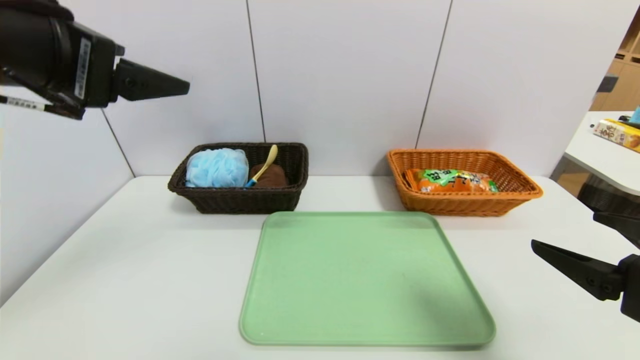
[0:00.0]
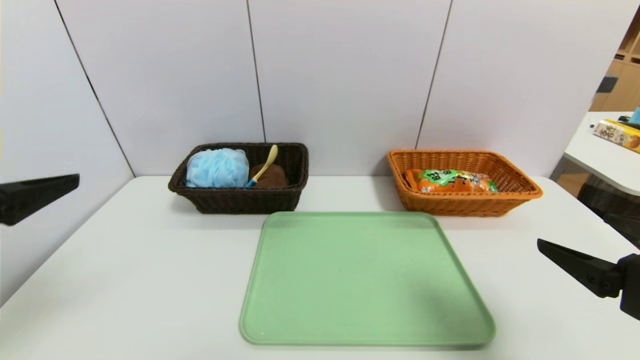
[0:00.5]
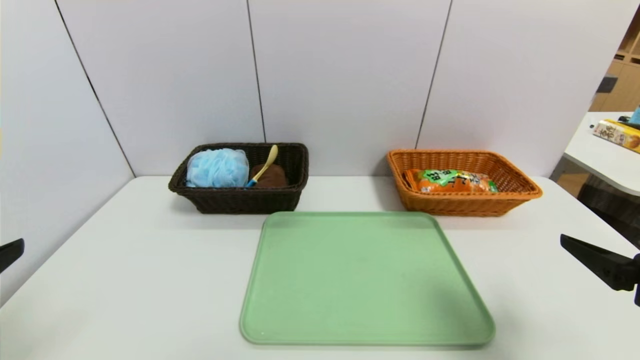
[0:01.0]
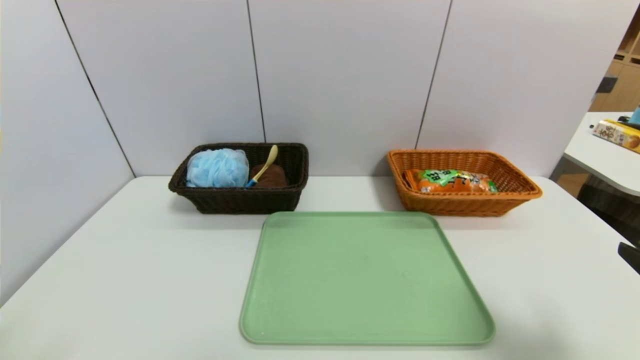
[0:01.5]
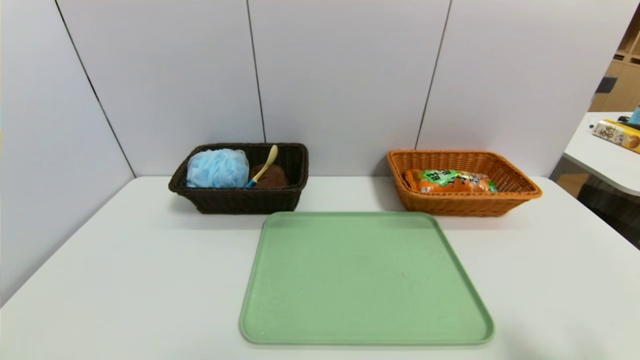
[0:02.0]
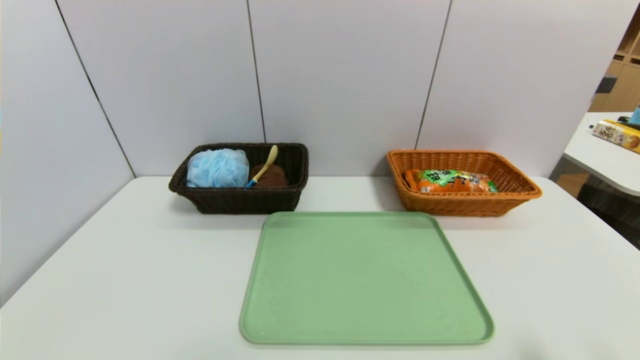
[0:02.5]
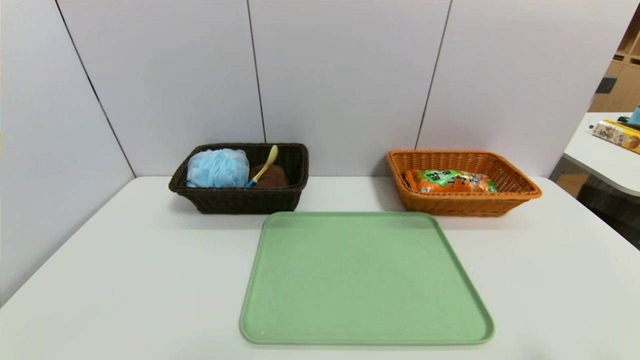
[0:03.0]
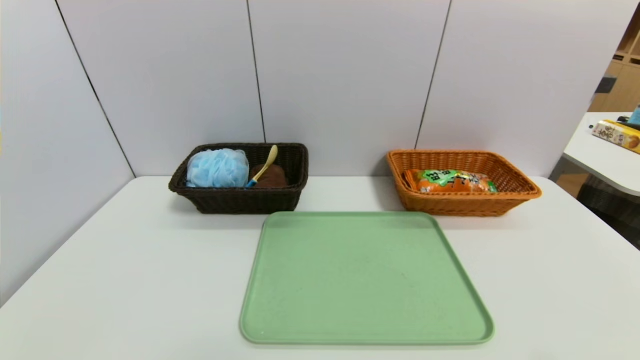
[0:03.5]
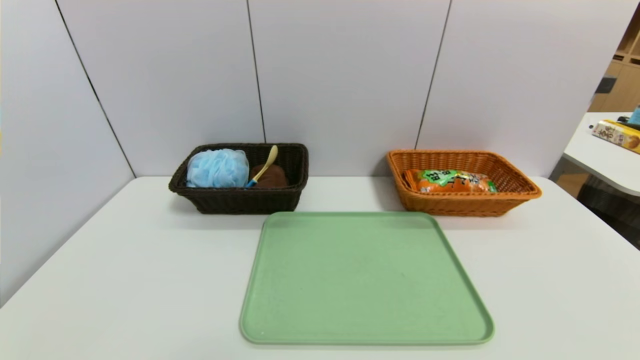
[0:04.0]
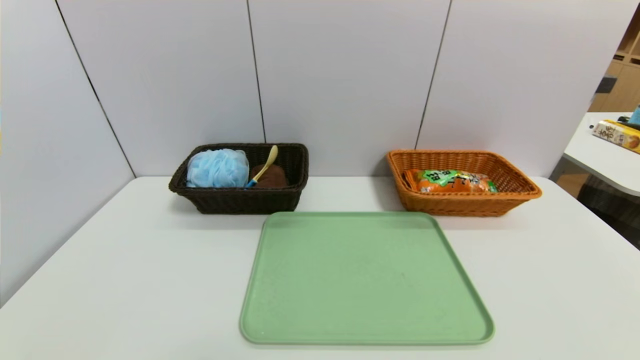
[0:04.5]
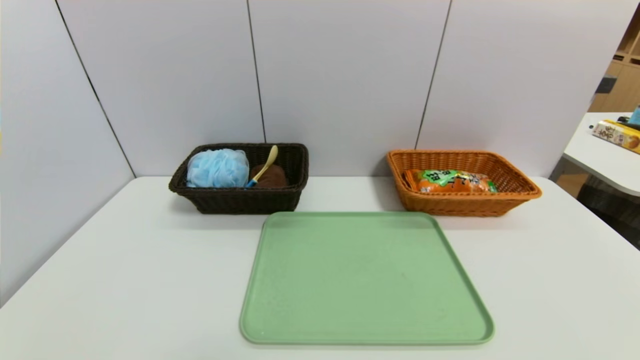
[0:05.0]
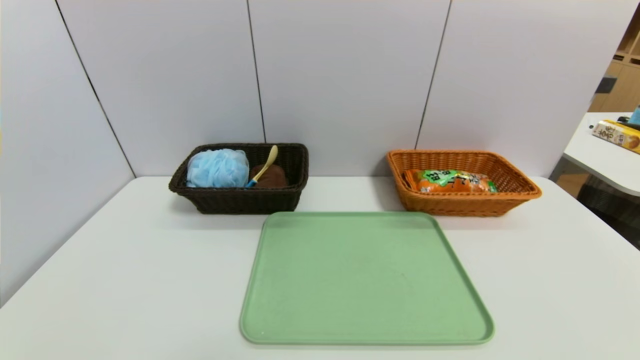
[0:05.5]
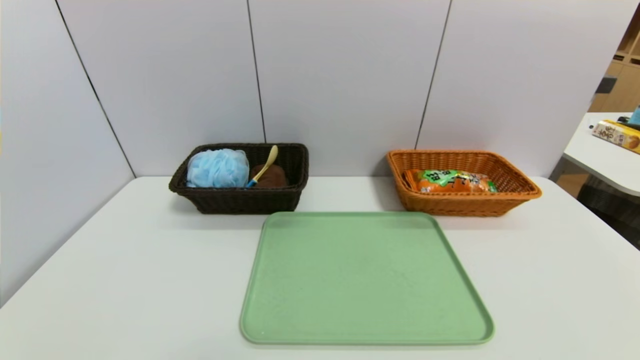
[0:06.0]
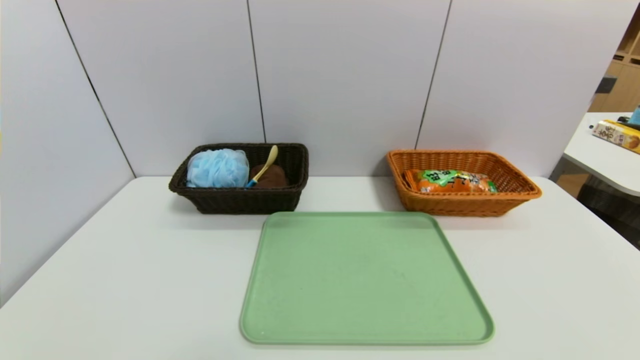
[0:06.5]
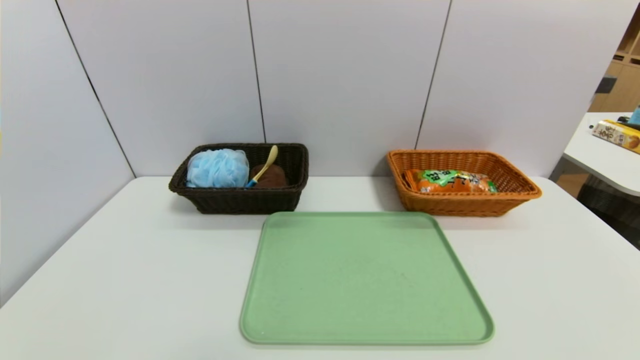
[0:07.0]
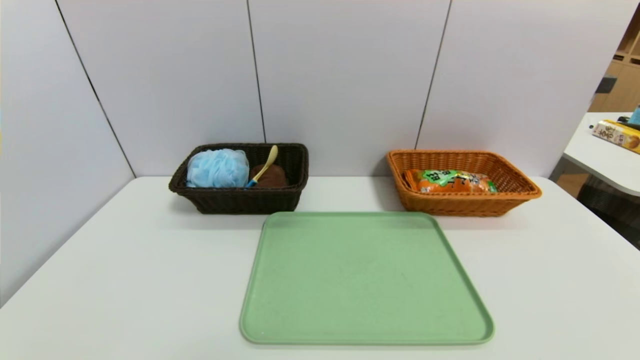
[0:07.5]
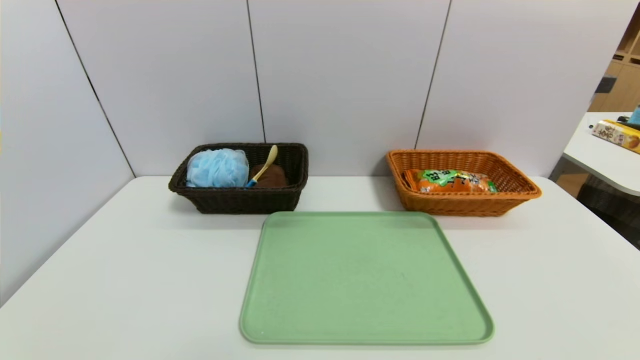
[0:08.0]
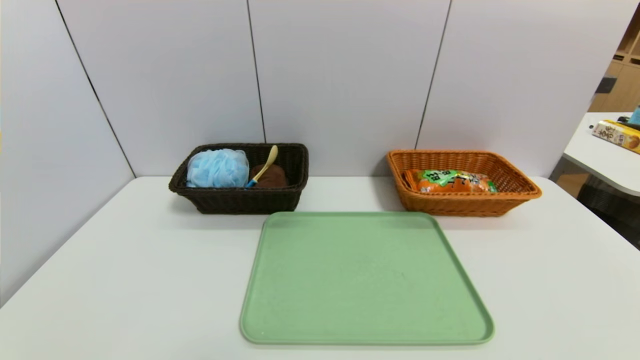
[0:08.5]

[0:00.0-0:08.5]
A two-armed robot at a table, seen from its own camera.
Task of the whole recording: place the food in the right basket with the right gripper, and place the non food items in the left basket with the left gripper.
0:00.0 to 0:02.0: The left gripper is displaced backward and downward by approximately 30 cm, while the right gripper is displaced backward by some 5 cm.
0:06.5 to 0:08.5: Both grippers stay about where they are.

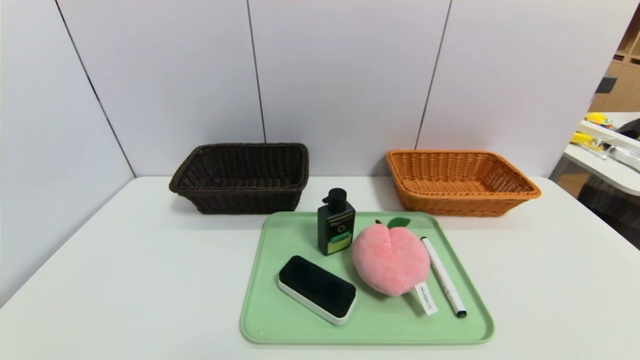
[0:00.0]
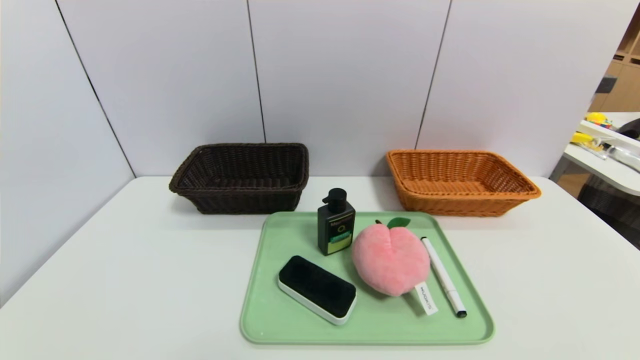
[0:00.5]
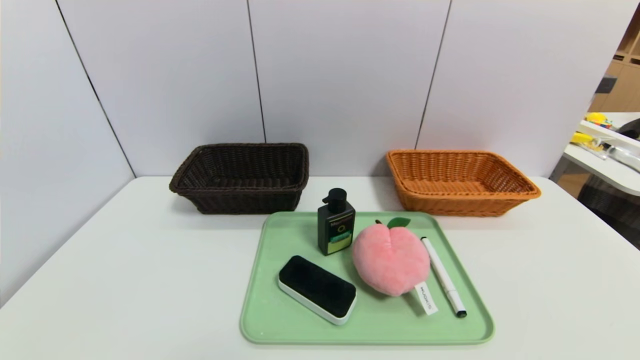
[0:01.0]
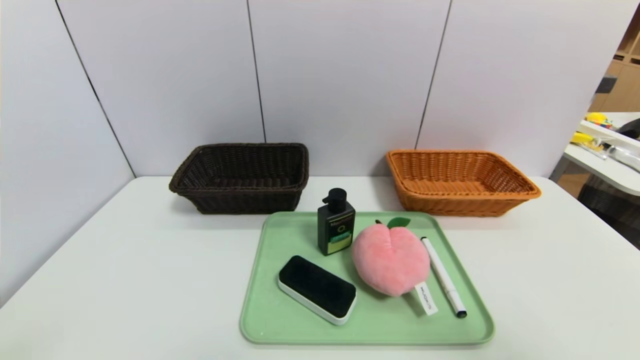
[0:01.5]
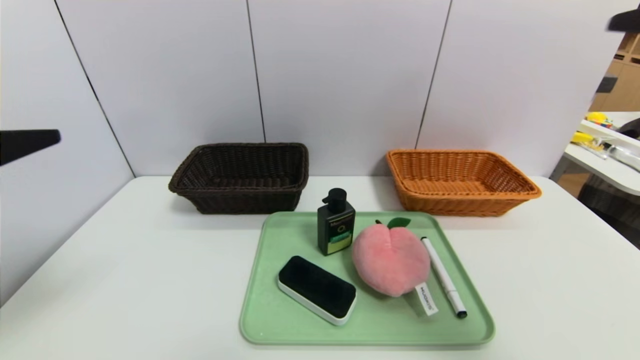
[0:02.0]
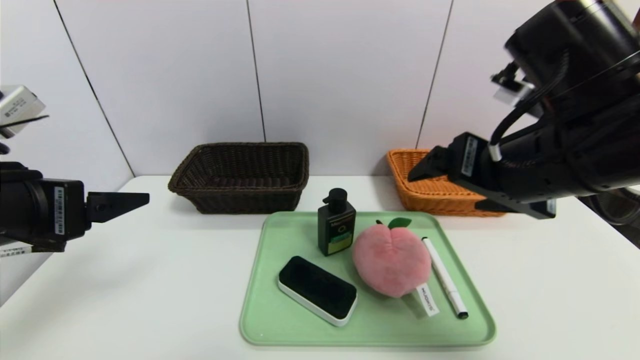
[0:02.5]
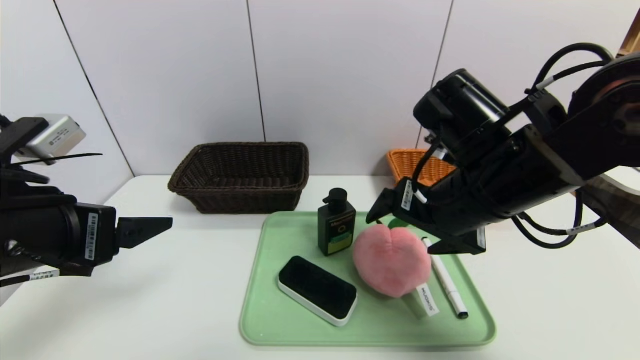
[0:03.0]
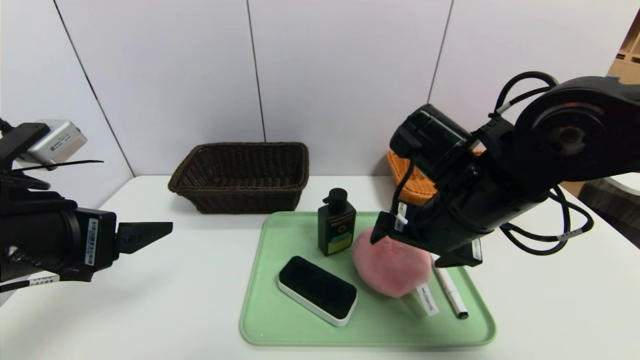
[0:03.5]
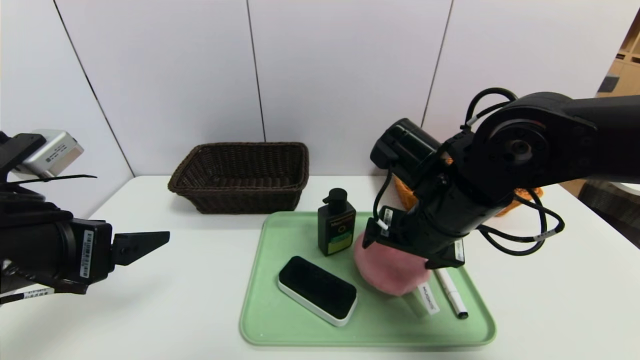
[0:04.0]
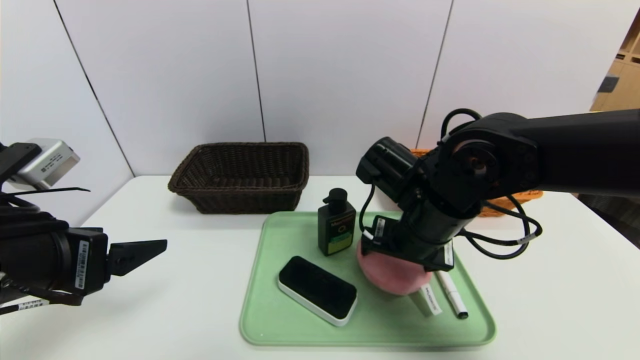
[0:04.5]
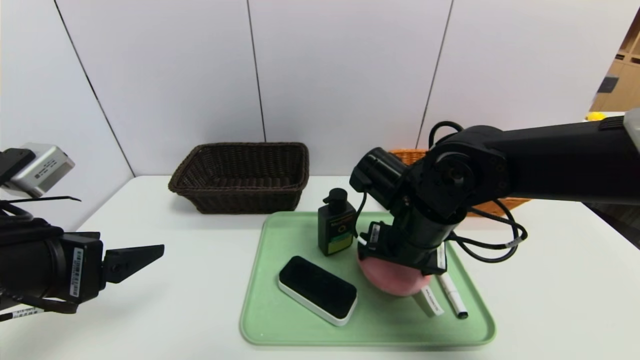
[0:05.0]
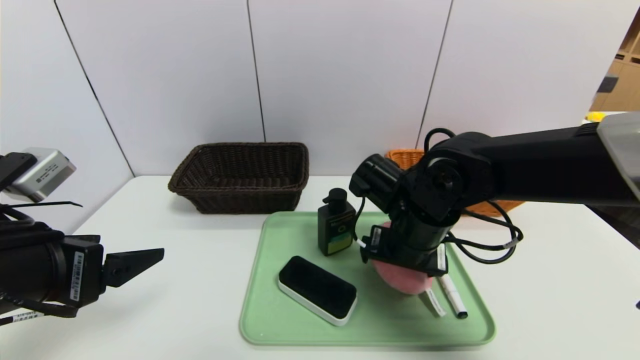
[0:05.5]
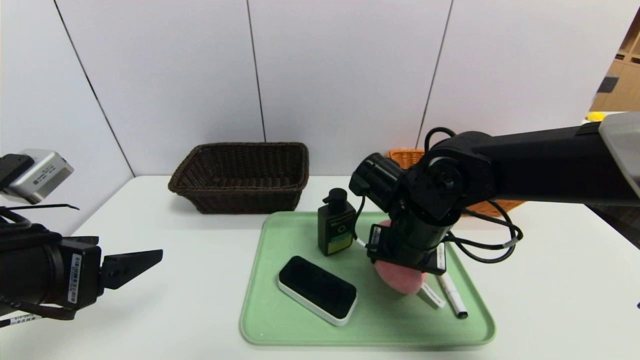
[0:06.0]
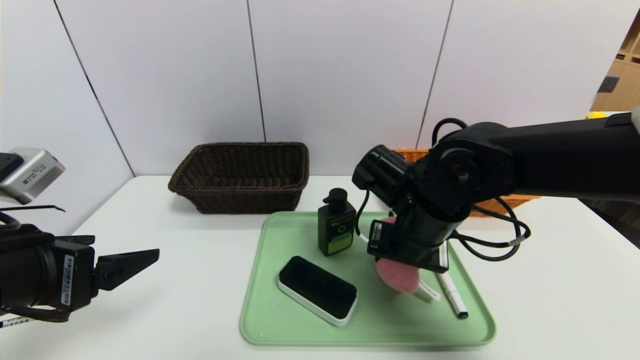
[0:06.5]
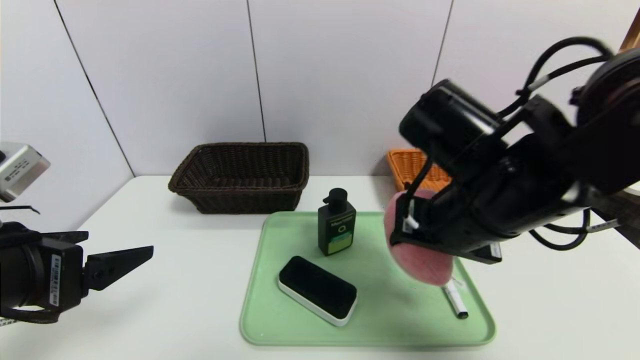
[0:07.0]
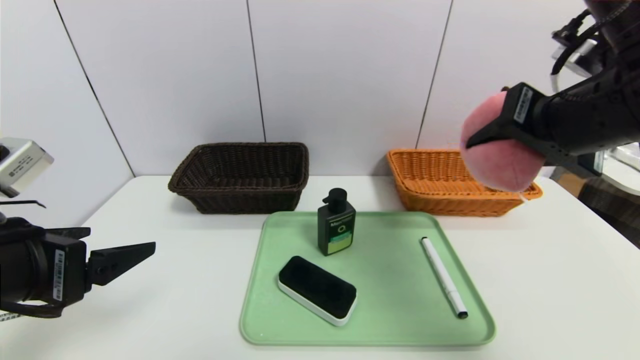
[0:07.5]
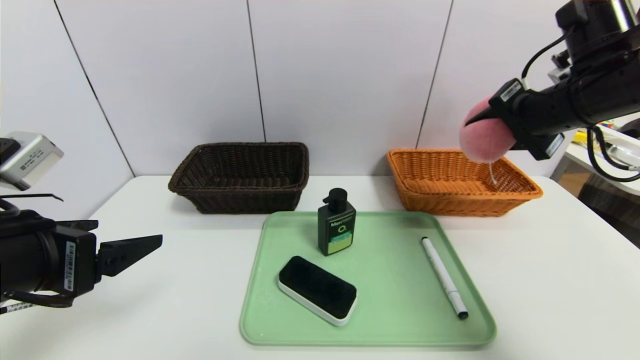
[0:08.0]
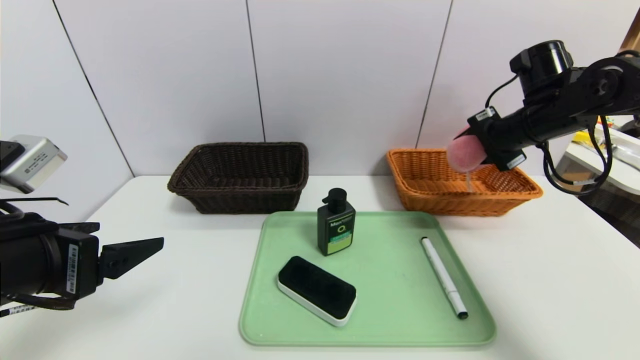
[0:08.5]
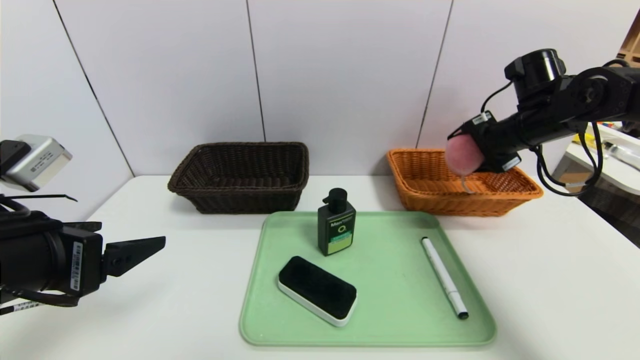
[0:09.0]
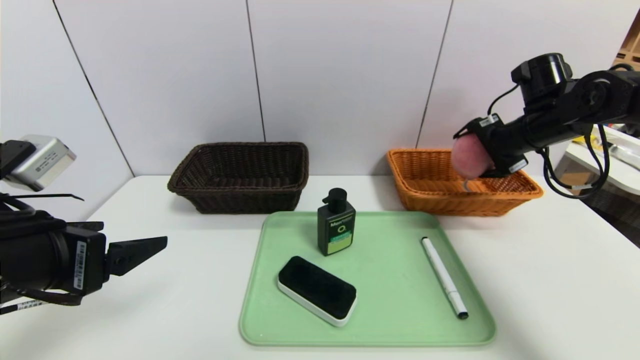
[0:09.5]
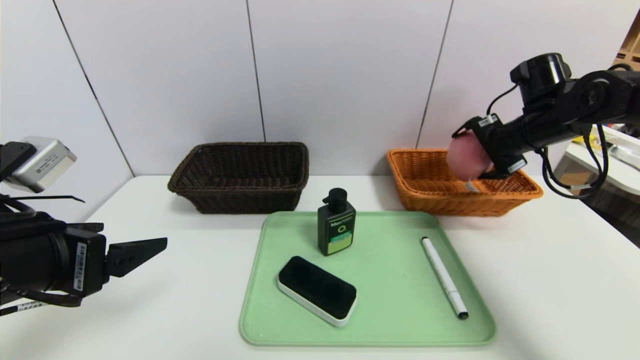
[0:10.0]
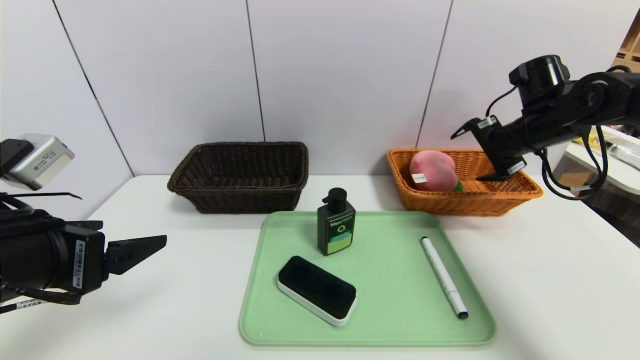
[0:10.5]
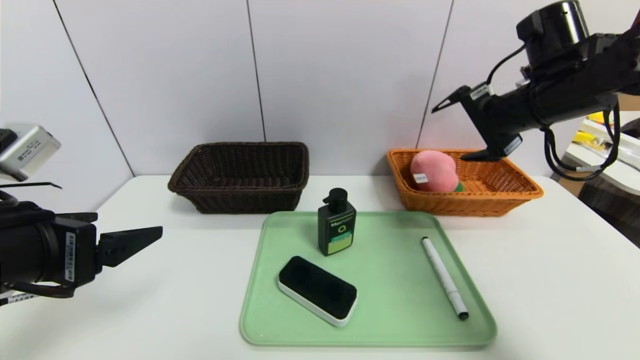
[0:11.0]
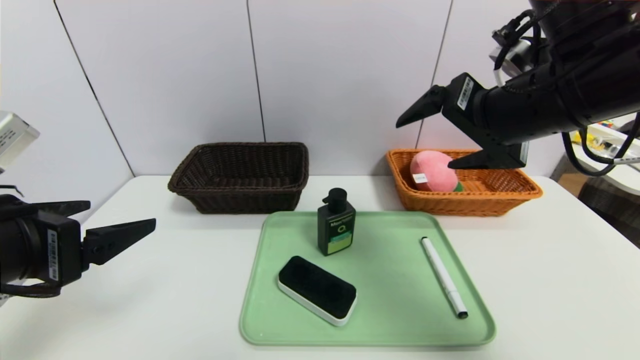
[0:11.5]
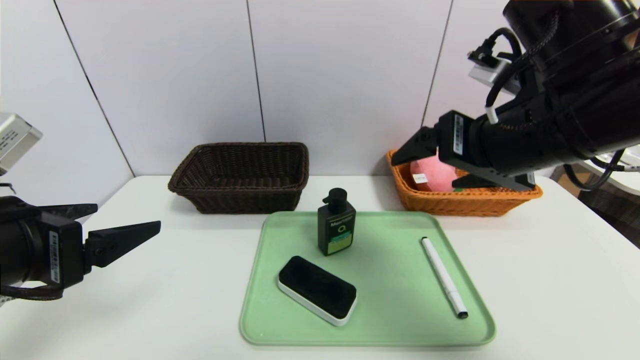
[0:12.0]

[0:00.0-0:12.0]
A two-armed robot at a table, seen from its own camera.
Task of the whole recording: place the food in the right basket with the right gripper, and place the non food items in the left basket with the left gripper.
Step, 0:00.0 to 0:11.5: Grasp the peach doll and put it in the right basket.
0:00.0 to 0:02.0: The two grippers go roughly 30 cm upward and forward.
0:02.0 to 0:04.0: The left gripper travels downward by approximately 10 cm, while the right gripper goes approximately 30 cm downward, to the left and forward.
0:04.0 to 0:06.0: The right gripper ends up some 5 cm from where it was, and closes its fingers.
0:06.0 to 0:08.0: The right gripper goes approximately 25 cm to the right and upward, and closes.
0:08.0 to 0:10.0: The right gripper heads forward and downward, covering roughly 10 cm, and opens.
0:10.0 to 0:12.0: The right gripper heads backward and to the left, covering roughly 25 cm.
